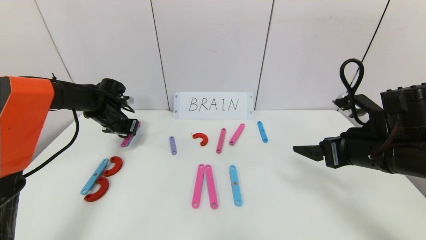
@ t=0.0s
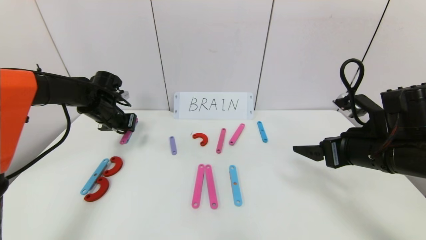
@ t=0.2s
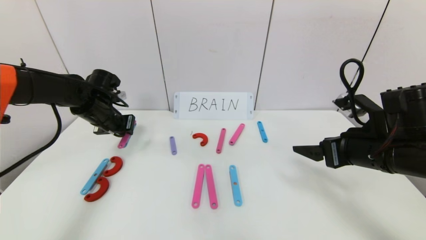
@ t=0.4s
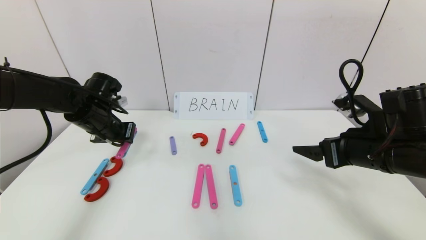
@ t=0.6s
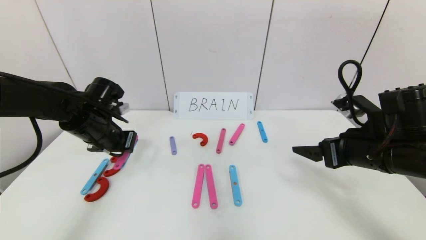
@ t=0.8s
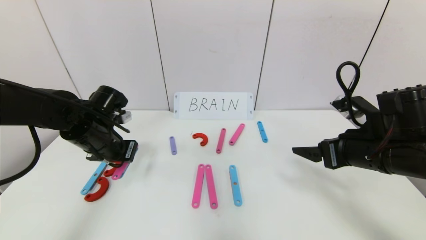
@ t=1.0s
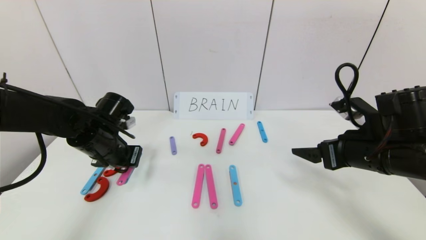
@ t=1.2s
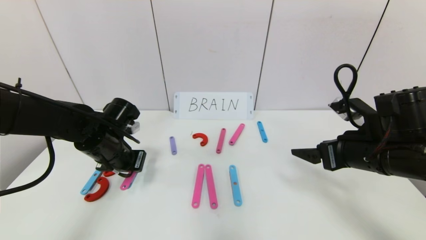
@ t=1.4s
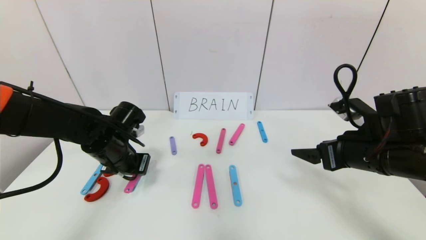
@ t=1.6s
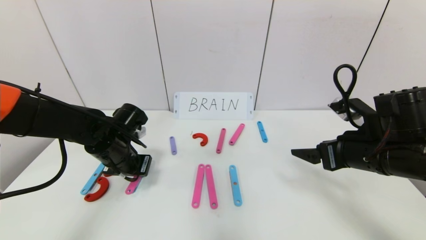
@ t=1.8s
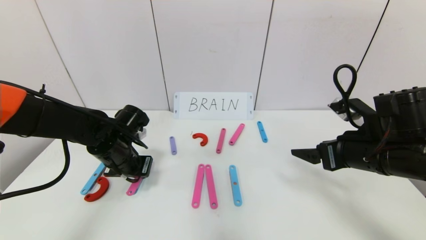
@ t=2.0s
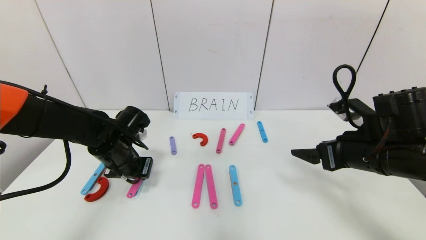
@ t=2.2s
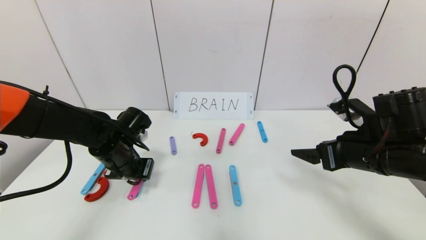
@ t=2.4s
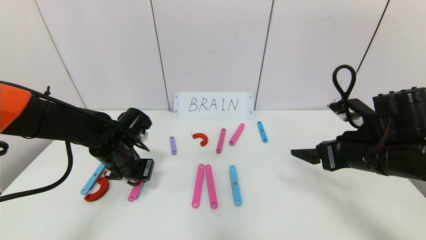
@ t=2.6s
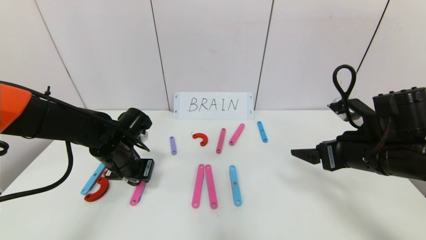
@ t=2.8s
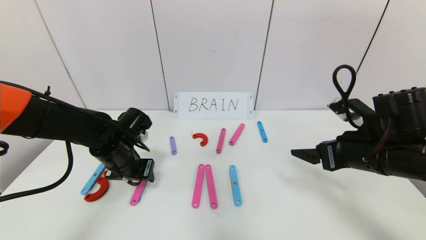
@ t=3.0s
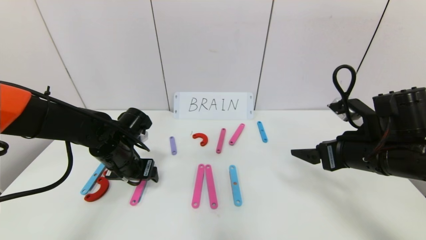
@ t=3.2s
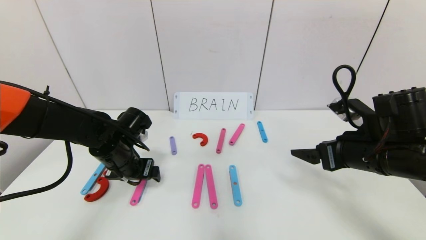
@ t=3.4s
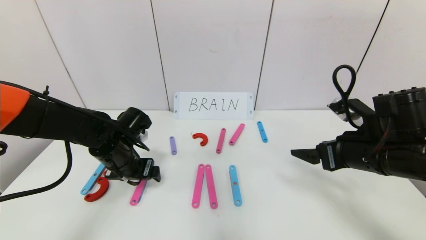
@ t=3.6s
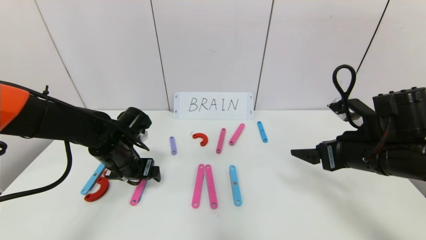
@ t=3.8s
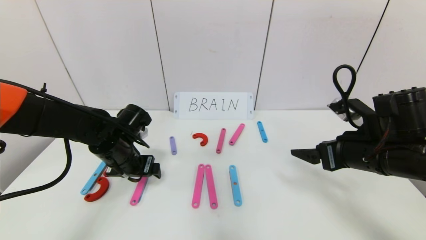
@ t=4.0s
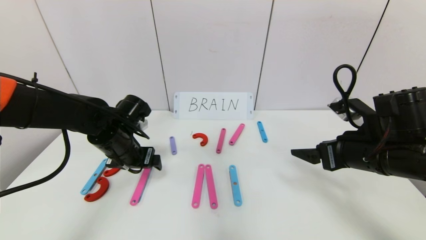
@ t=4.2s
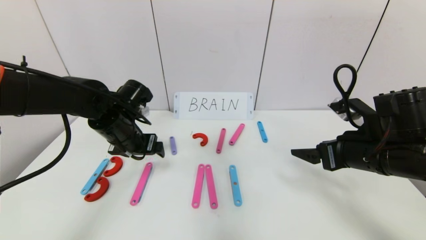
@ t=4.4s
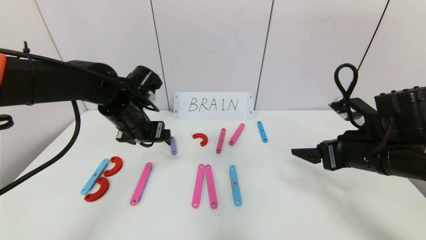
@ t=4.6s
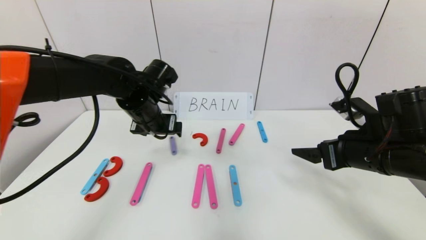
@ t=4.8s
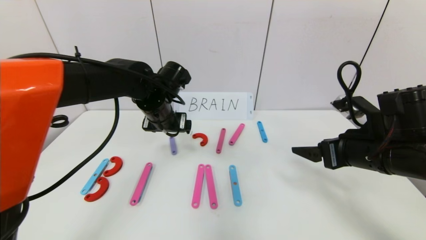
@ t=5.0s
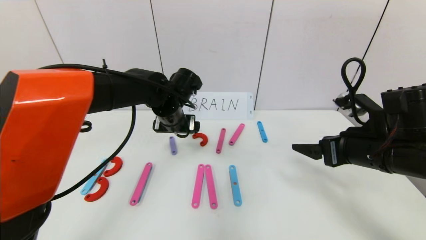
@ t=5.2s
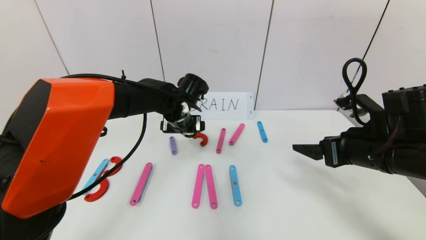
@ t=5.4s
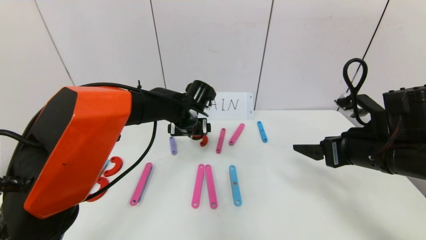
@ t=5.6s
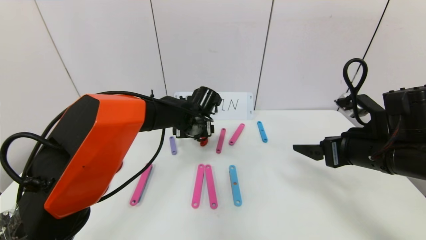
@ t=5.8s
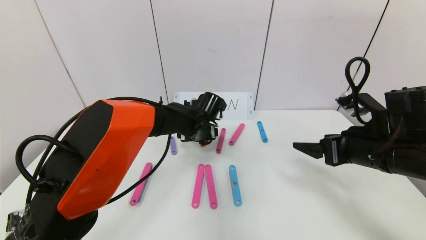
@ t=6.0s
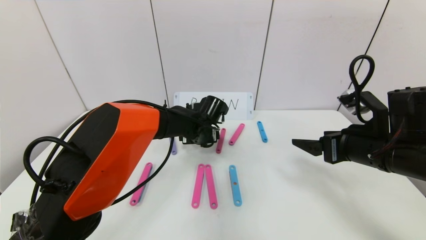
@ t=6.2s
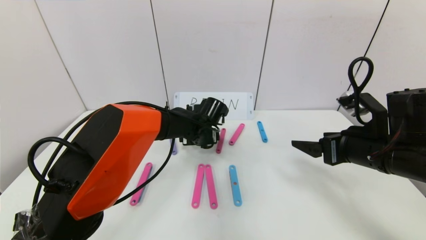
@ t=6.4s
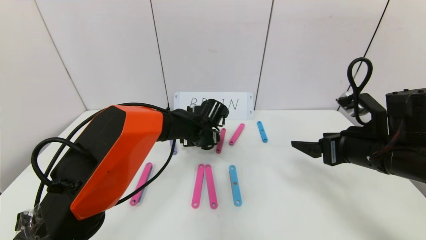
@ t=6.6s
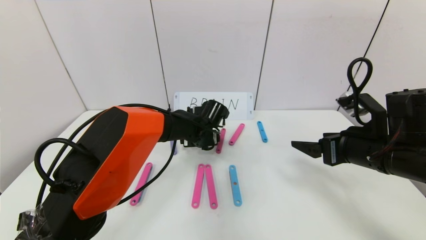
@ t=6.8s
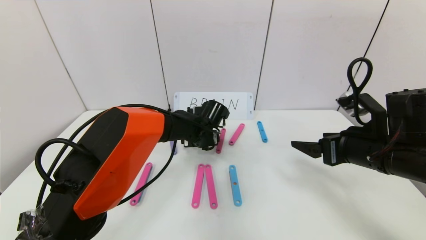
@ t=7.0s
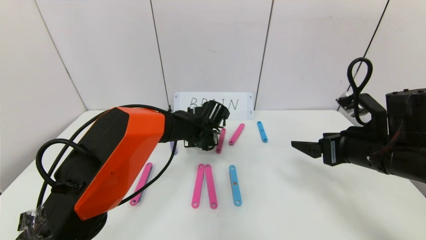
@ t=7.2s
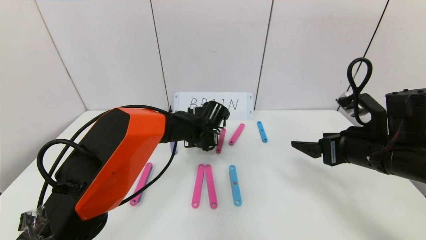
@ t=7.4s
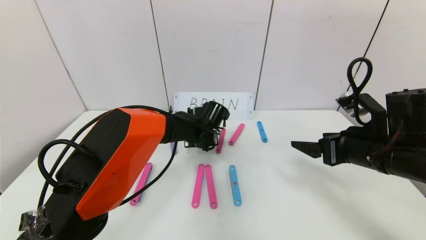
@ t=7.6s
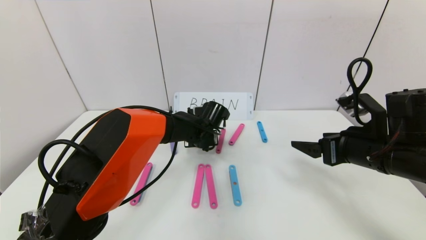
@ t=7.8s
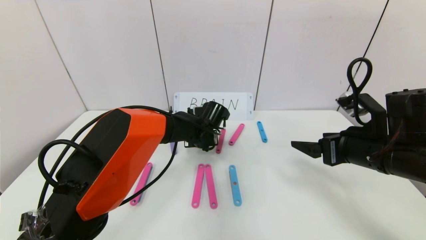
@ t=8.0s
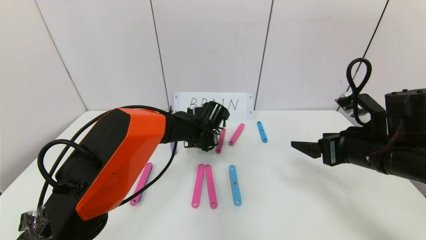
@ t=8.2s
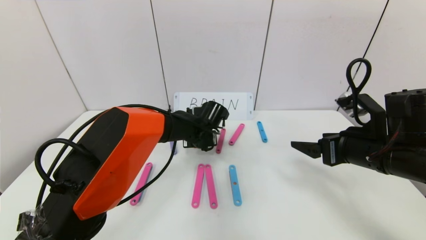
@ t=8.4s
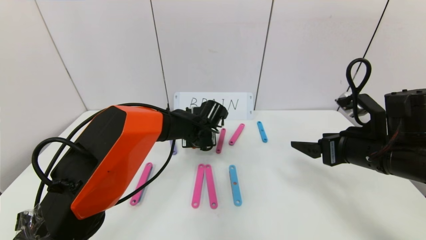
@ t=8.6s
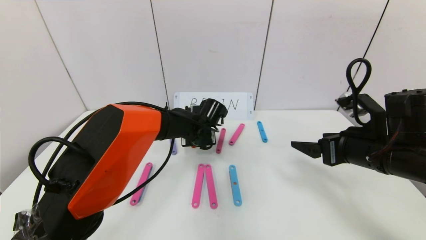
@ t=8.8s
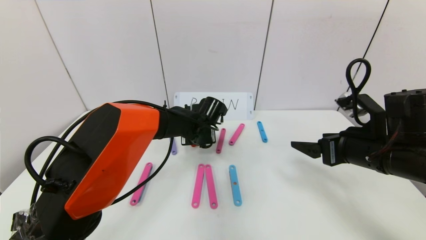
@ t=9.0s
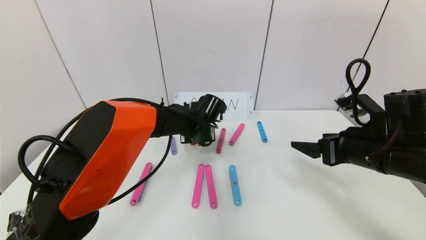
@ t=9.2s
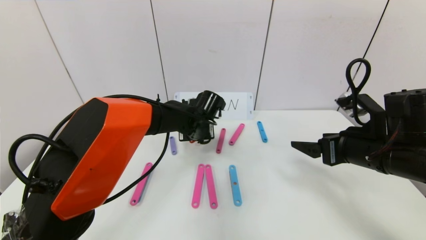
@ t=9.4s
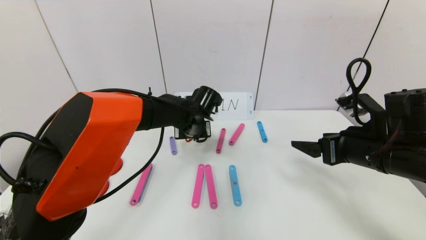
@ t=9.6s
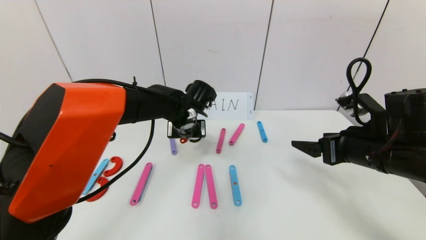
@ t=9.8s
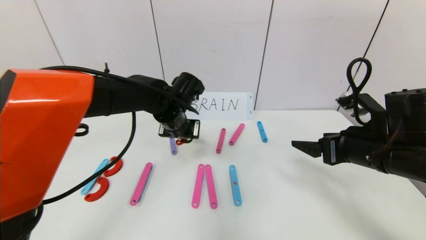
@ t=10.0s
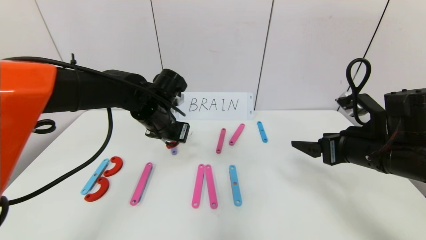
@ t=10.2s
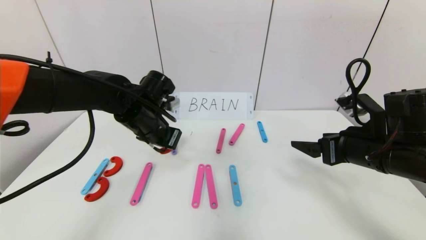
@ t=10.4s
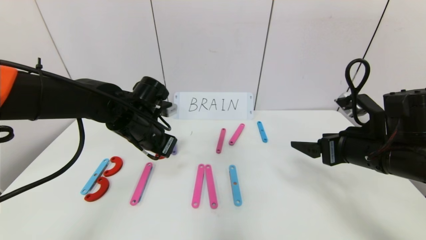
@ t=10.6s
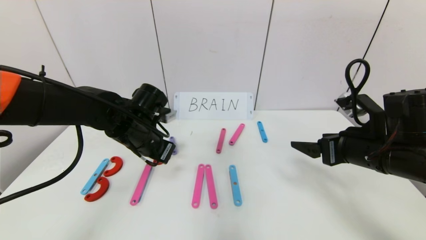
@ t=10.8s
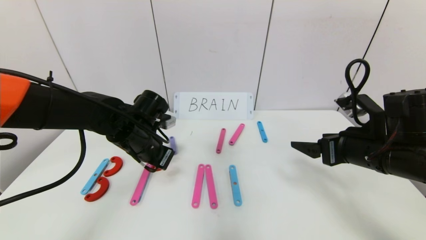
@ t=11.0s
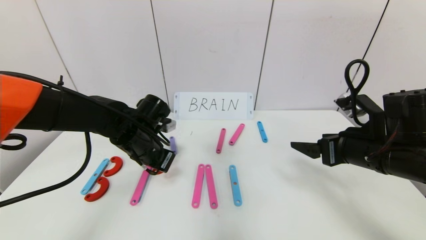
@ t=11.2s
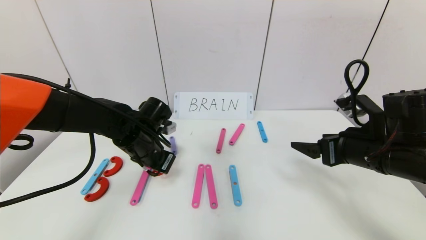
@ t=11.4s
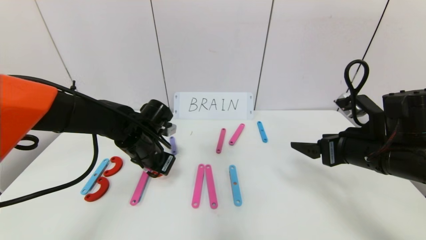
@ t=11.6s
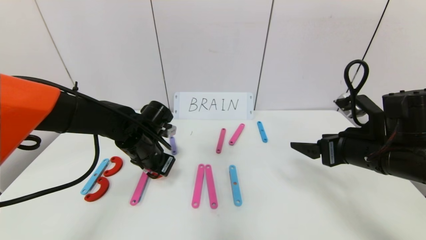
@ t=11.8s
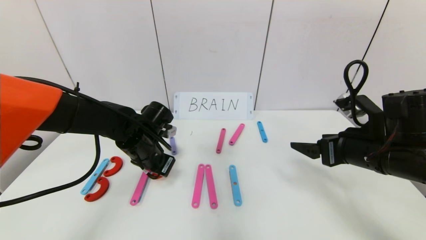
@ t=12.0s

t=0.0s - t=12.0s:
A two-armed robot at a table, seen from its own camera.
Task of the whole recording: rearrange the word baai as brain.
t=0.0s - t=1.6s: The left gripper moves backward and to the right, about 15 cm.
t=1.6s - t=3.0s: The left gripper opens its fingers.
t=3.0s - t=4.4s: The left gripper is displaced upward by roughly 5 cm, and opens its fingers.
t=4.4s - t=6.0s: The left gripper moves to the right and forward, roughly 20 cm.
t=6.0s - t=7.6s: The left gripper closes its fingers.
t=7.6s - t=9.0s: The grippers move only a little.
t=9.0s - t=10.4s: The left gripper goes approximately 15 cm to the left, upward and backward.
t=10.4s - t=12.0s: The left gripper shifts about 5 cm downward.

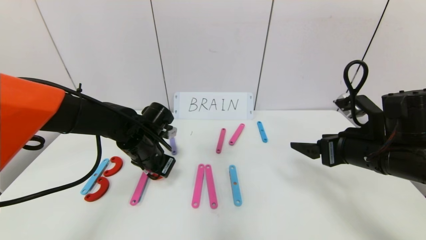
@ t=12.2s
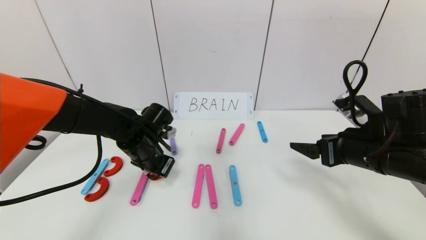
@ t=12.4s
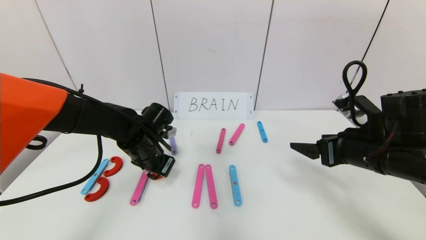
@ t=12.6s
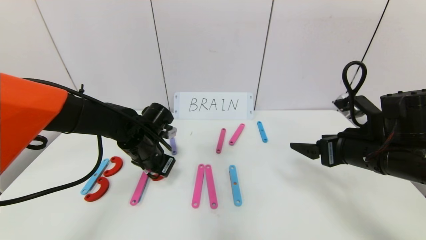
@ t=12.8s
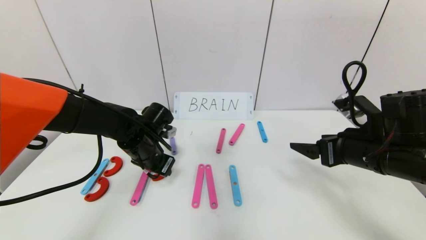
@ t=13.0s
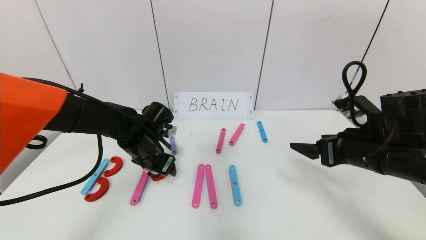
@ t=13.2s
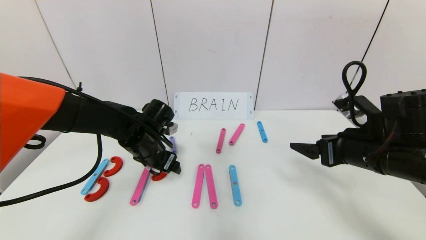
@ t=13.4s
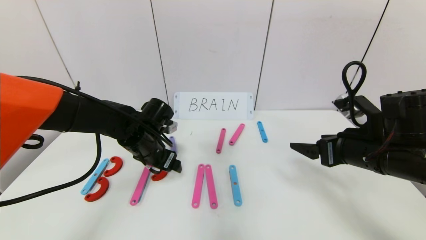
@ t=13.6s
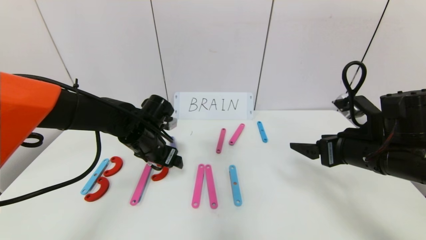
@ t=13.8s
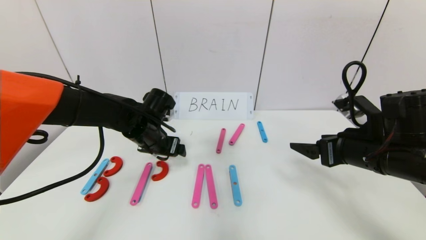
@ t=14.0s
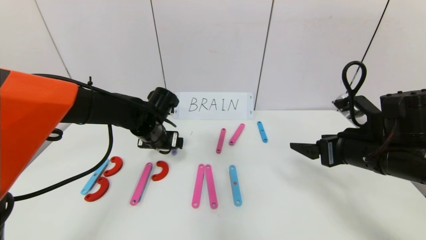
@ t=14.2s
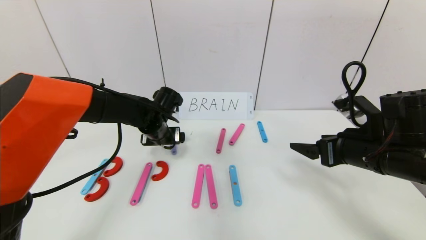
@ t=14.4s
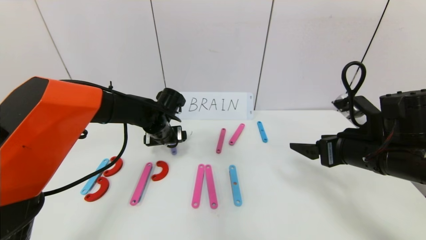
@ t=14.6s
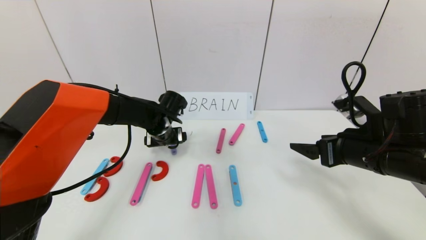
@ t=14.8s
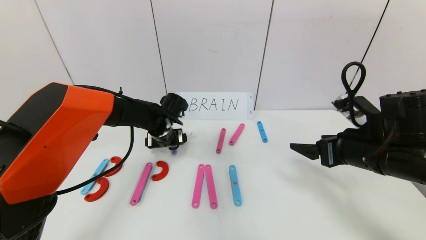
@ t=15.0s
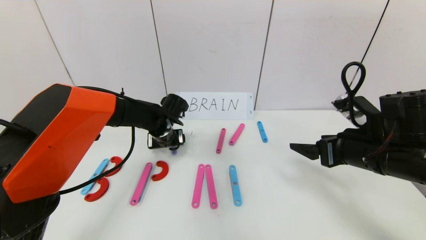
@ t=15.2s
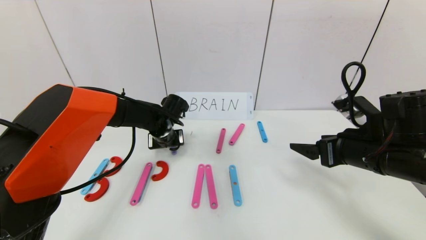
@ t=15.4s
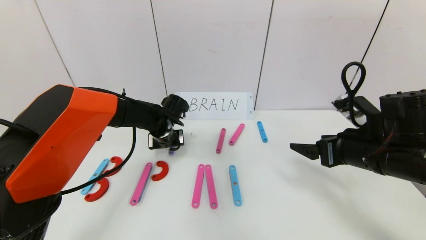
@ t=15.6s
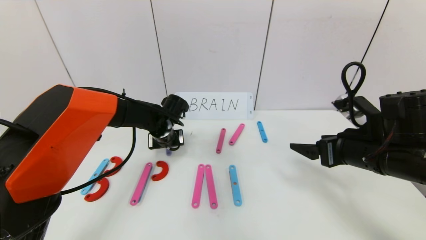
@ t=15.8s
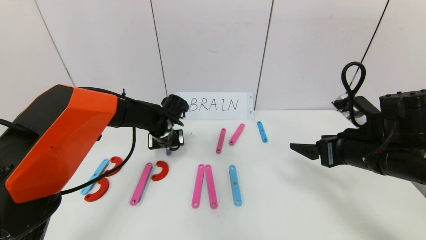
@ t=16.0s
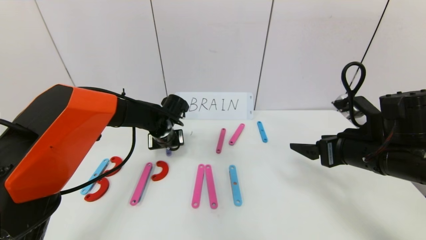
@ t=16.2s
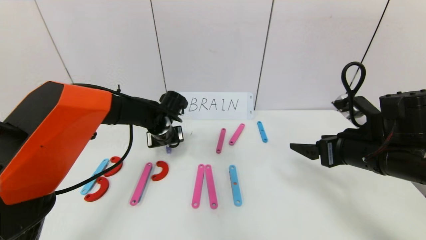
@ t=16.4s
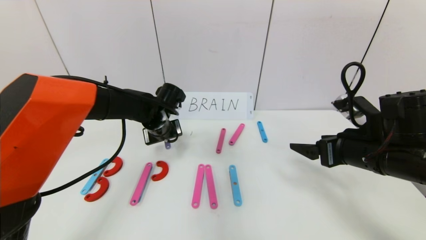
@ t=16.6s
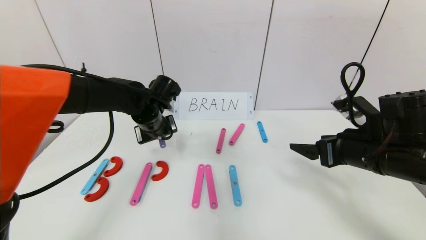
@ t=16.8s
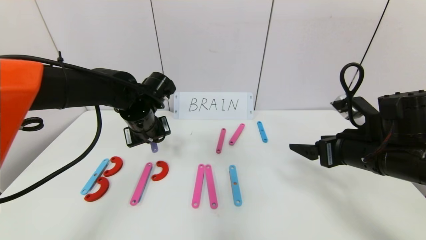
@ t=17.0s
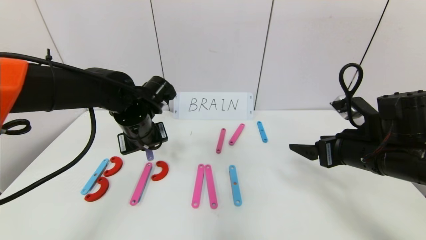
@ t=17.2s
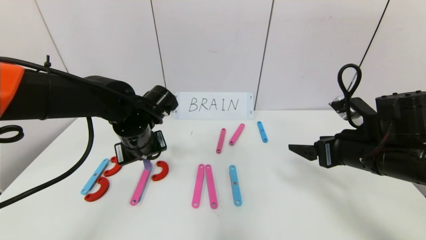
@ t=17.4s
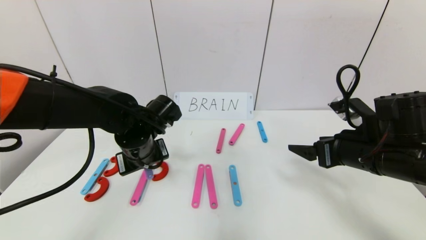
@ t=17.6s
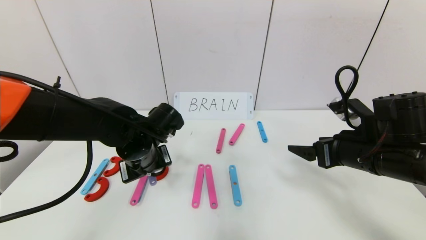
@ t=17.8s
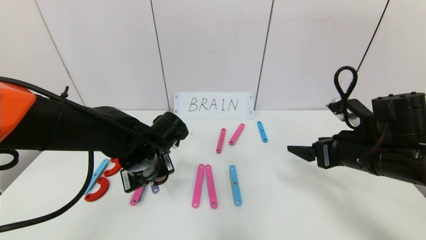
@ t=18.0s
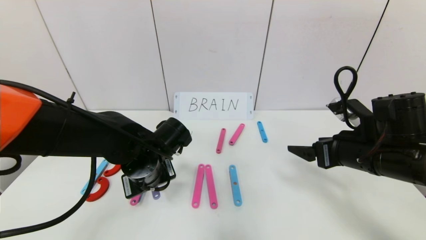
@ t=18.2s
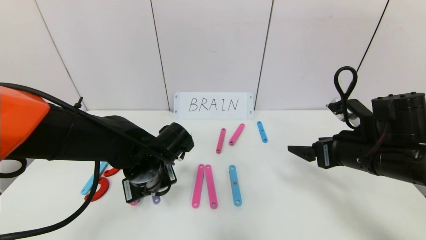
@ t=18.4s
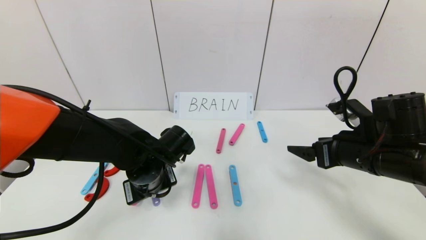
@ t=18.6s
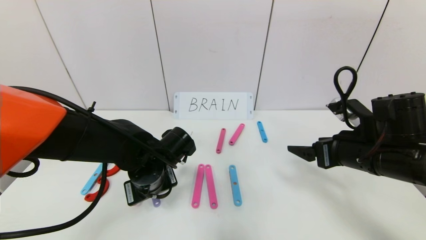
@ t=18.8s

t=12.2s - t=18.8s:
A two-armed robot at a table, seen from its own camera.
Task of the whole recording: rearrange the word baai as brain.
t=12.2s - t=13.8s: The left gripper opens.
t=13.8s - t=15.4s: The left gripper shifts roughly 5 cm forward, and closes up.
t=15.4s - t=17.2s: The left gripper goes roughly 10 cm backward and upward, and closes up.
t=17.2s - t=18.8s: The left gripper moves downward and backward, approximately 10 cm.
